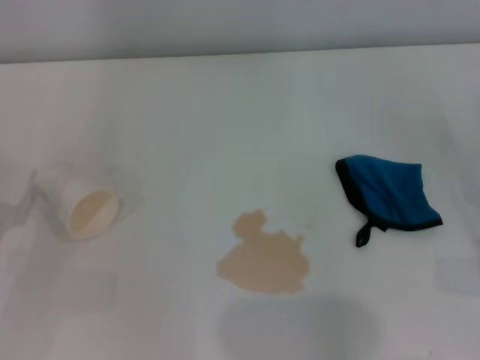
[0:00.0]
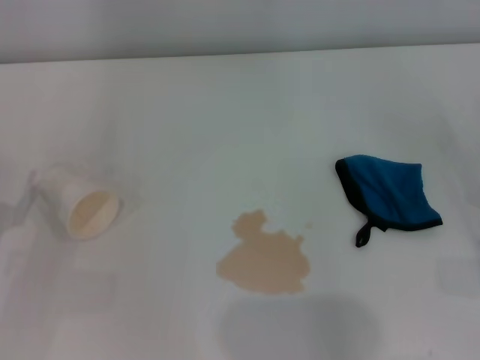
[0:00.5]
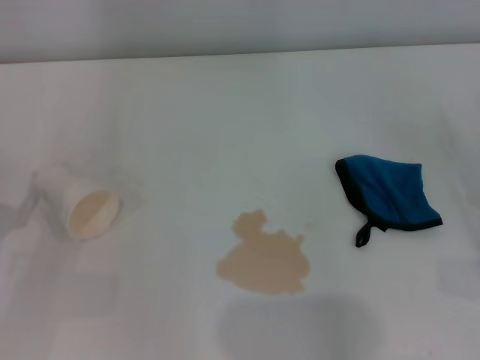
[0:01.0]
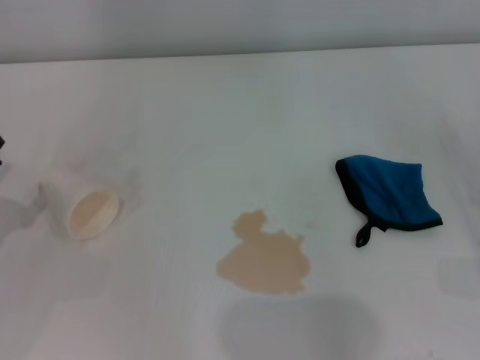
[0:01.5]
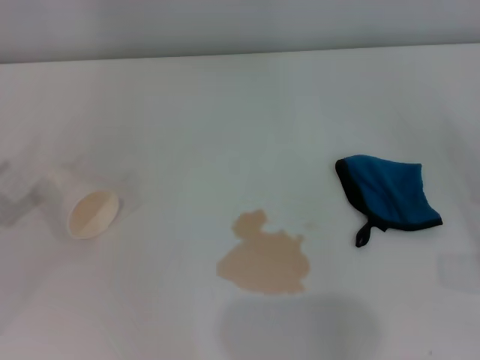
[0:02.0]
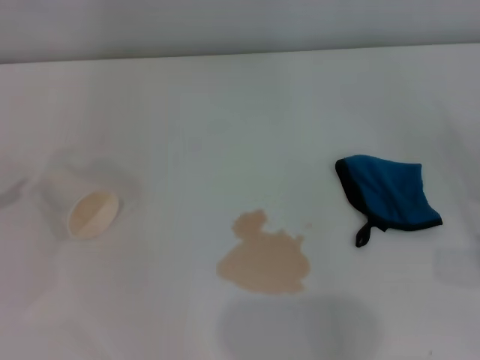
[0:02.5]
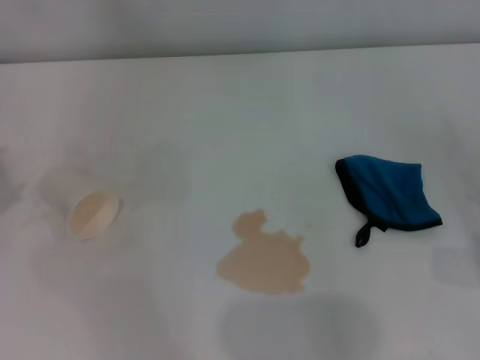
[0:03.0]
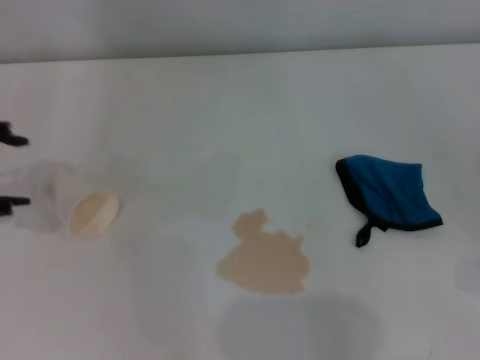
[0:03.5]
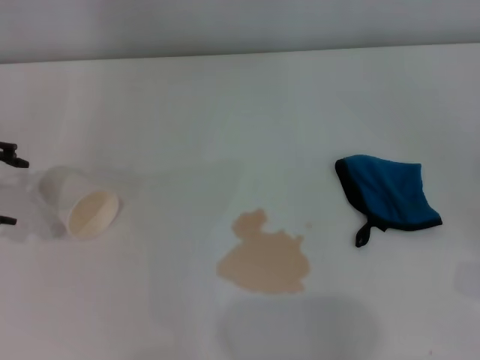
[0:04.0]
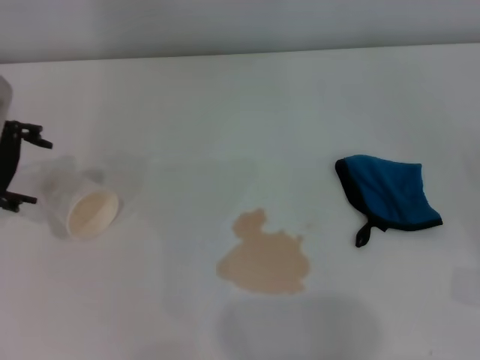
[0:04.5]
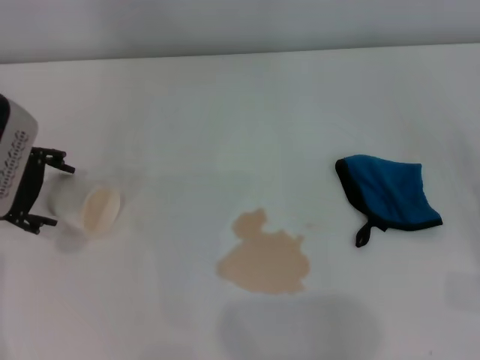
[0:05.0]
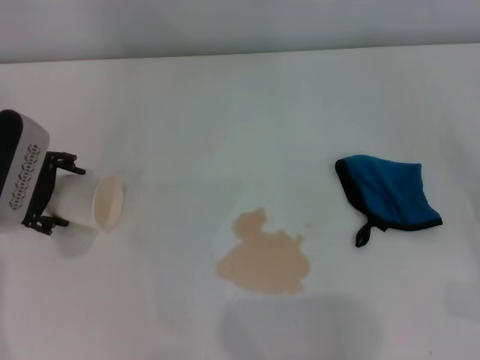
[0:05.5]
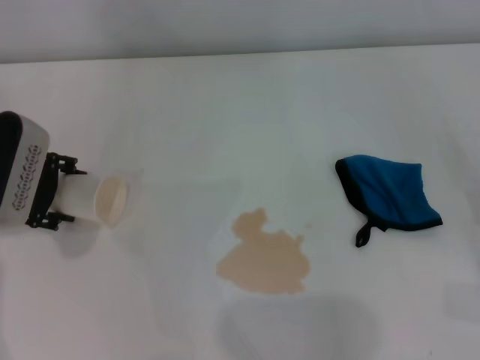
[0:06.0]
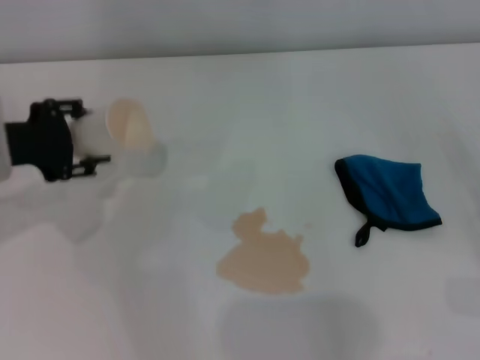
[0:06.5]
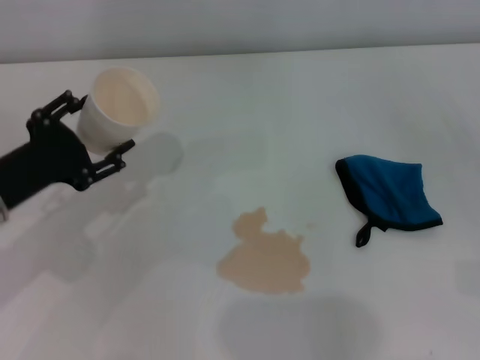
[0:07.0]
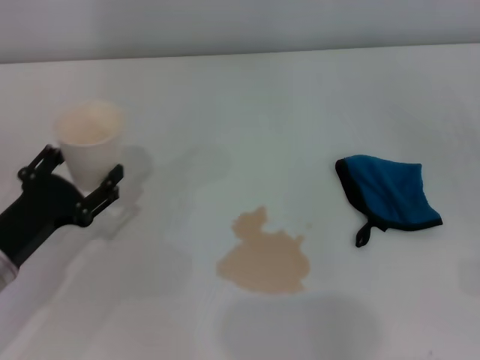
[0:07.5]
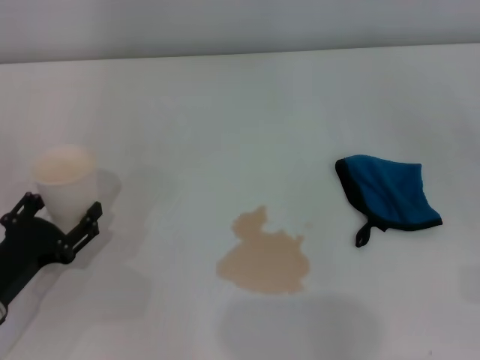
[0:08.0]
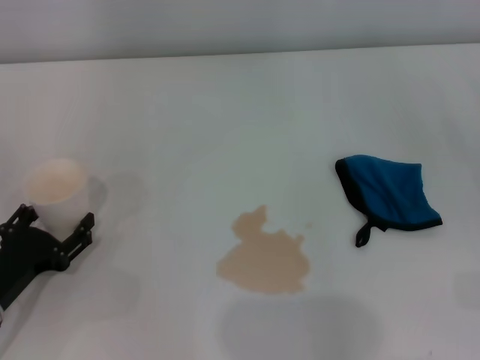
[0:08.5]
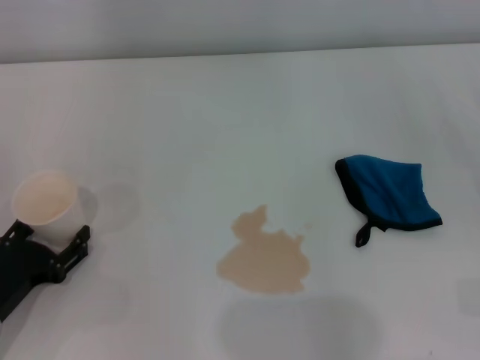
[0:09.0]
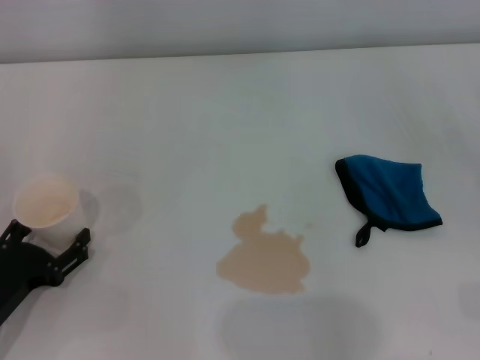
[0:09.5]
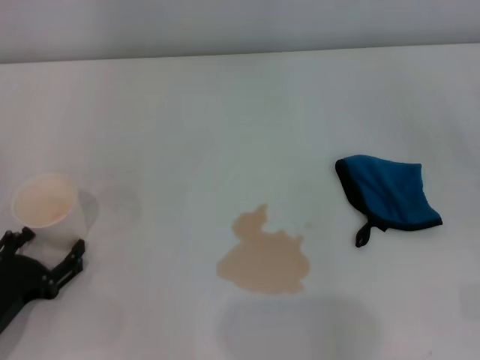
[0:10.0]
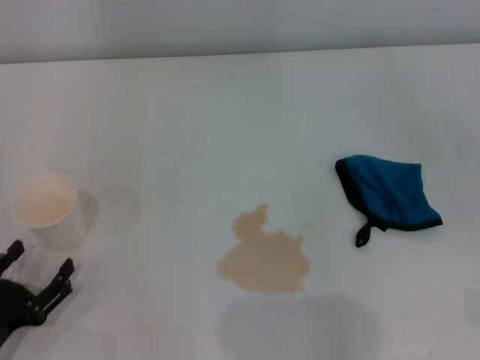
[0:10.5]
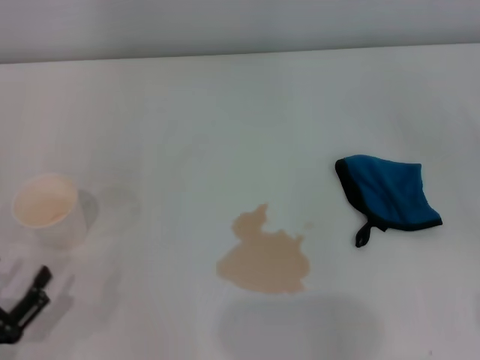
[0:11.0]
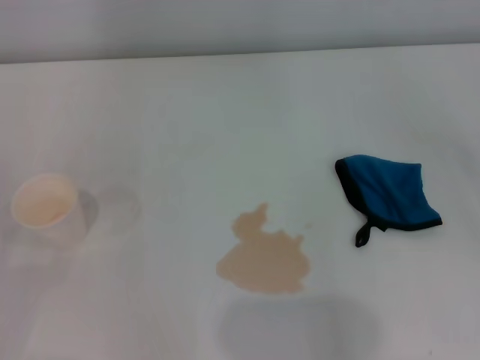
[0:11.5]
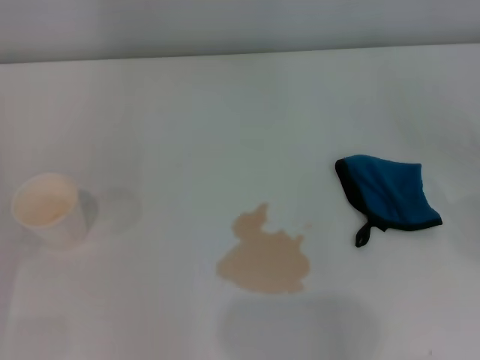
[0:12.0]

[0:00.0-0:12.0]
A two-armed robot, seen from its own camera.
Step, 0:00.0 to 0:05.5: Grasp the paper cup with the left gripper.
Step, 0:06.0 to 0:09.0: Stand the paper cup upright with the left gripper.
0:04.0 to 0:06.0: The left gripper moves downward, approximately 5 cm, and closes its fingers.
0:06.0 to 0:08.0: The left gripper is displaced backward and downward by roughly 20 cm, and closes and opens again.
0:08.0 to 0:10.0: The left gripper opens up.
0:10.0 to 0:12.0: The left gripper moves to the left, some 5 cm.

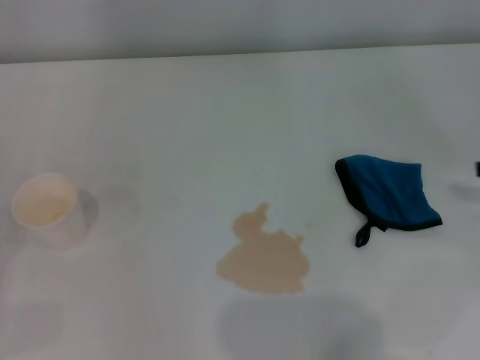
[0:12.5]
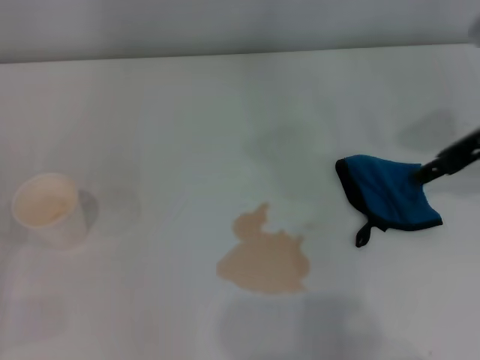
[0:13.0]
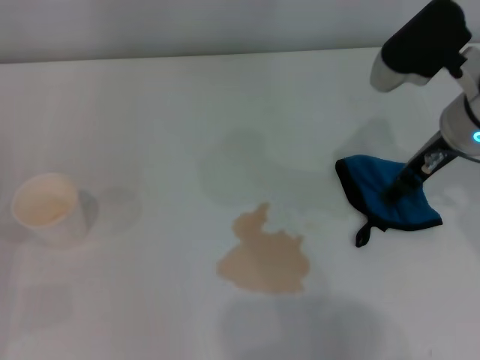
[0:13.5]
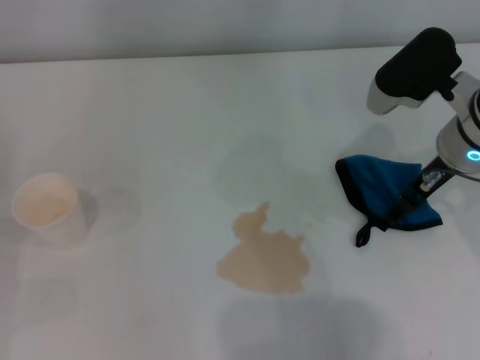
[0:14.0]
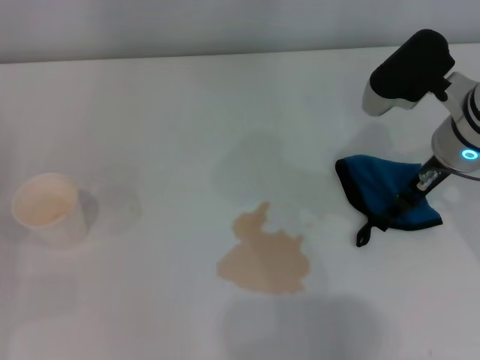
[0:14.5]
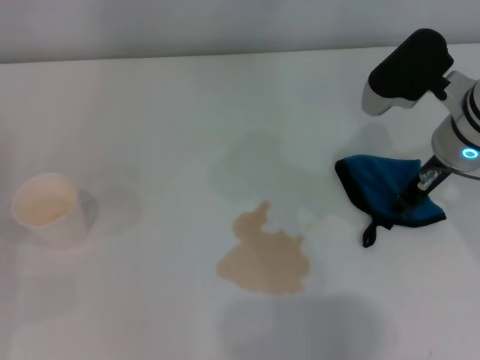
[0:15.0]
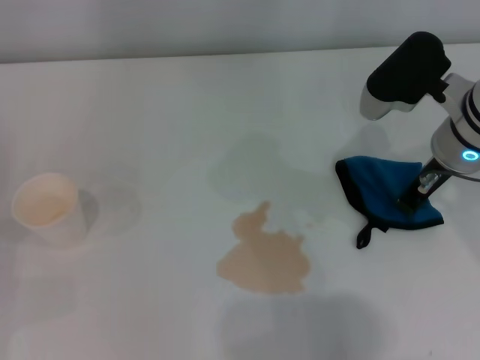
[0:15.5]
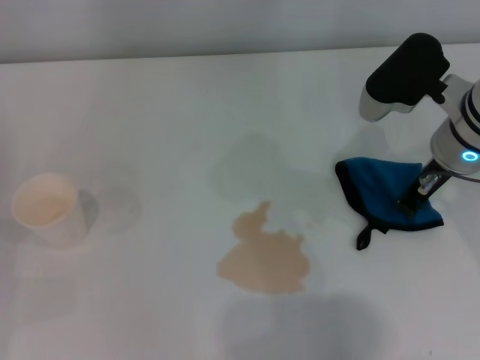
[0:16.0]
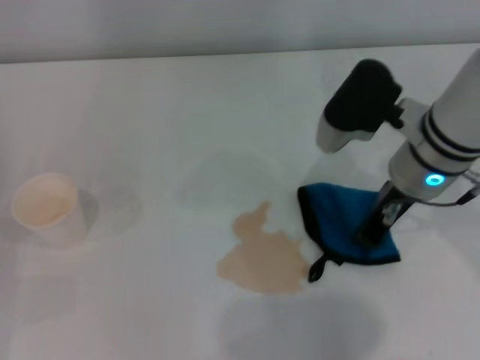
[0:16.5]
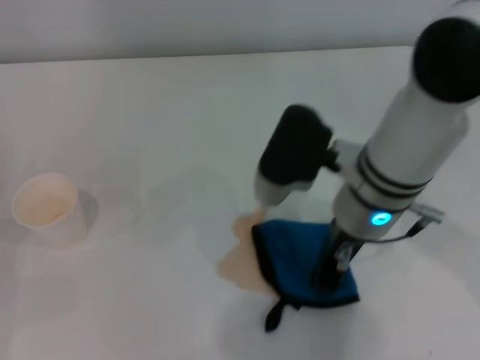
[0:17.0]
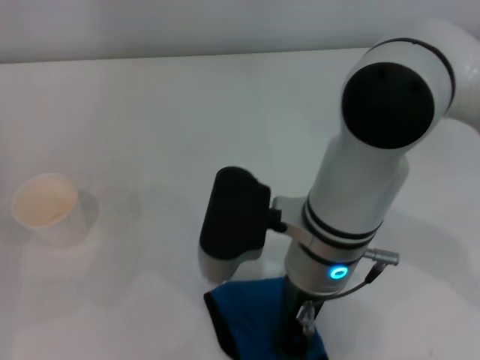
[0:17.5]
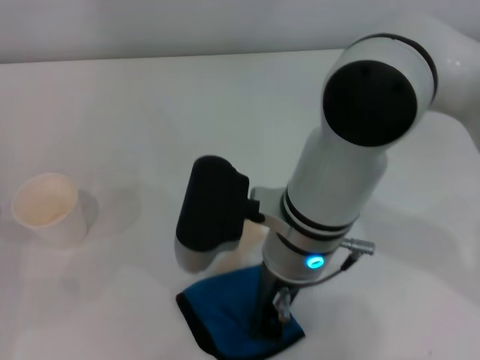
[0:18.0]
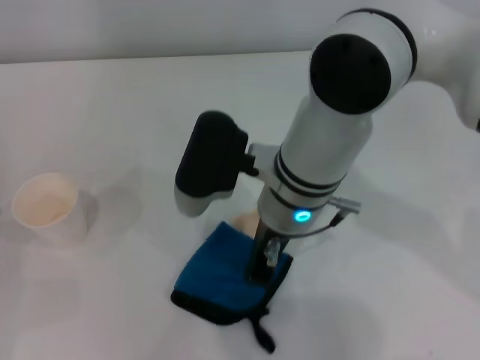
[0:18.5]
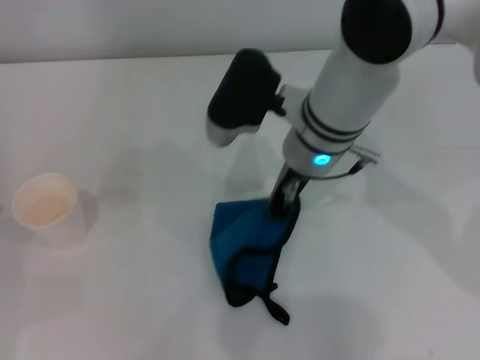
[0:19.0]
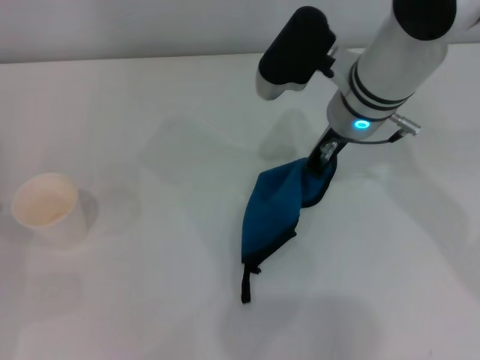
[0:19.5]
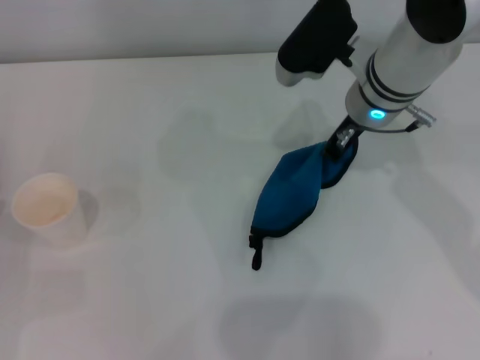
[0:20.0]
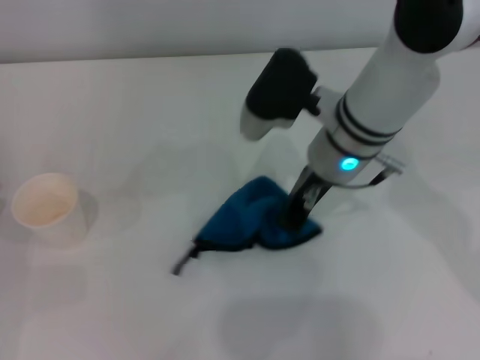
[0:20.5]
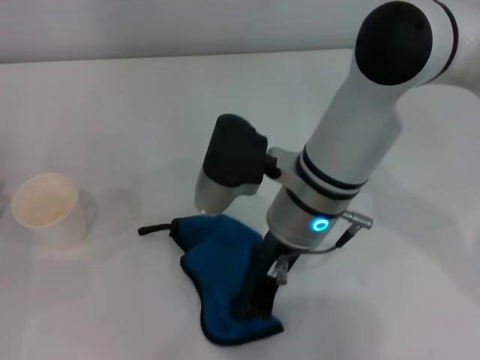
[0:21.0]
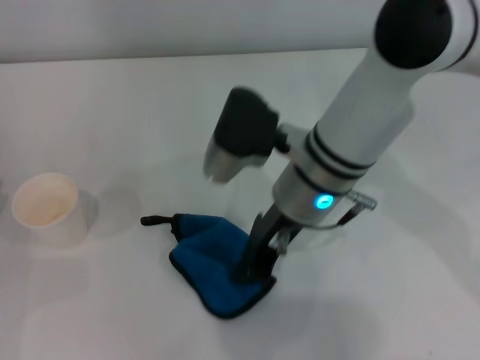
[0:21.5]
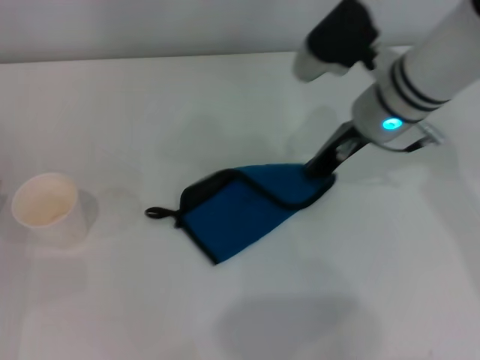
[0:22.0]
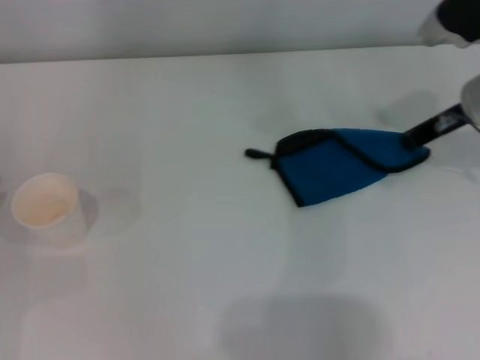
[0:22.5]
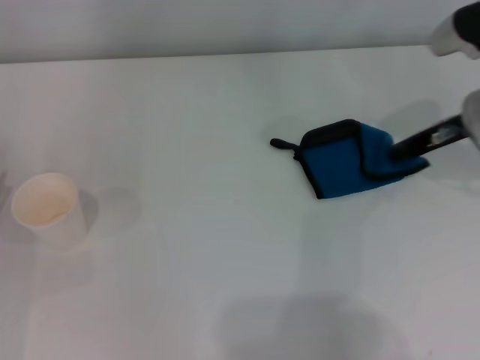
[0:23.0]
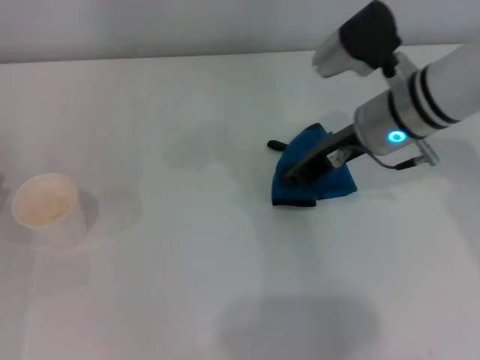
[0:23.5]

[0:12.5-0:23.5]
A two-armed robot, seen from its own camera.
Step, 0:12.5 to 0:14.5: Grasp the rag with the right gripper.
Step, 0:15.0 to 0:22.0: Wipe the stains off the table with the right gripper.
0:12.5 to 0:14.5: The right gripper travels to the left and forward by approximately 20 cm.
0:14.5 to 0:16.0: The right gripper closes its fingers.
0:16.0 to 0:18.0: The right gripper moves to the left, approximately 15 cm.
0:18.0 to 0:20.0: The right gripper is displaced forward and to the right by approximately 15 cm.
0:20.0 to 0:21.5: The right gripper heads backward and to the left, covering about 10 cm.
0:21.5 to 0:23.5: The right gripper moves to the right, some 10 cm.

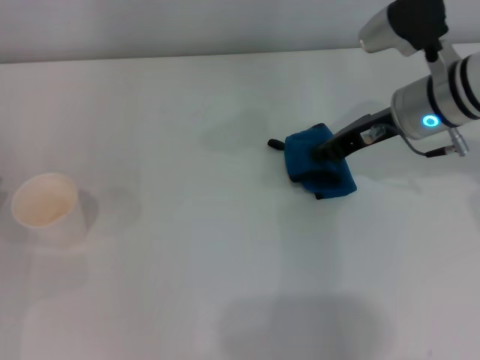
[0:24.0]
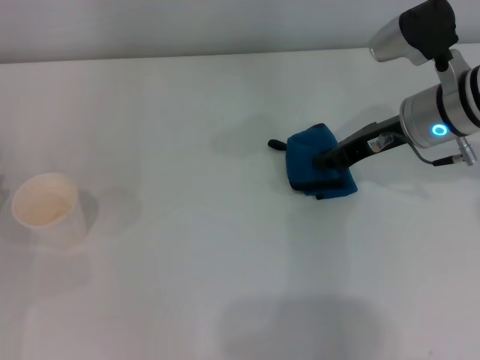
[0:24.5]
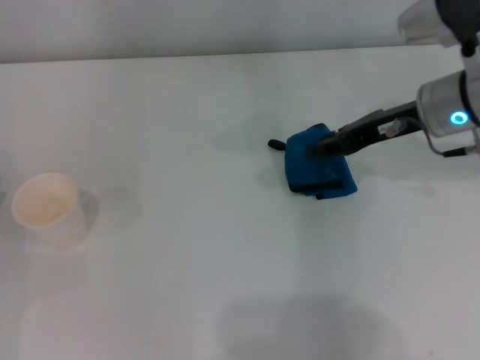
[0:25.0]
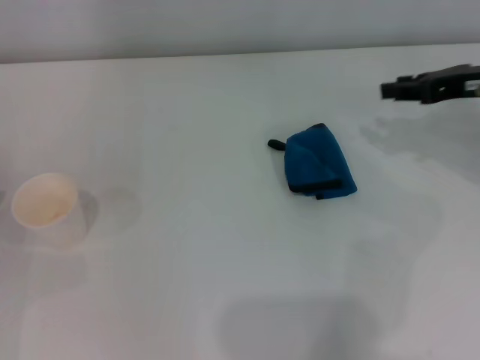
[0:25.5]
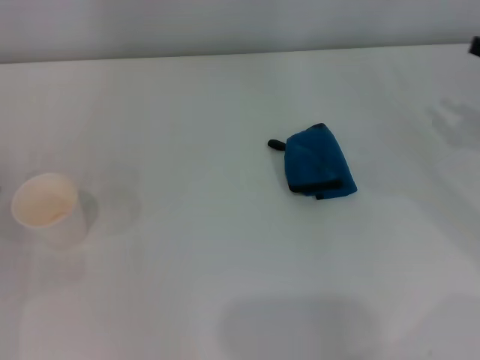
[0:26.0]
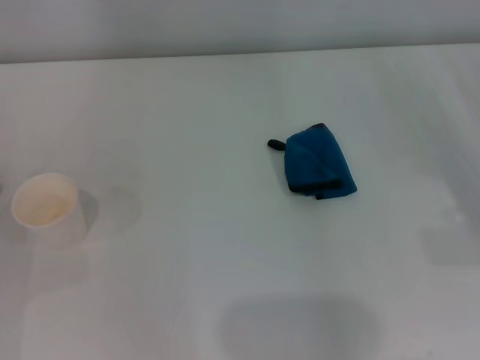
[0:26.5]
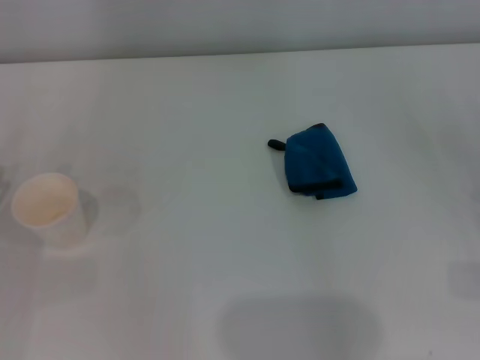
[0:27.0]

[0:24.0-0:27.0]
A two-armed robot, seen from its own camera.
0:24.0 to 0:25.5: The right gripper is displaced to the right by approximately 10 cm, and opens.
0:25.5 to 0:27.0: The right gripper goes approximately 25 cm backward, downward and to the right.
